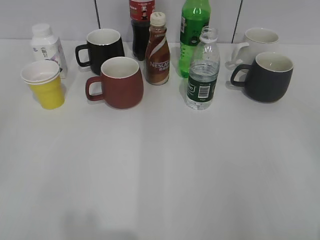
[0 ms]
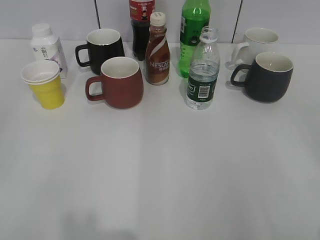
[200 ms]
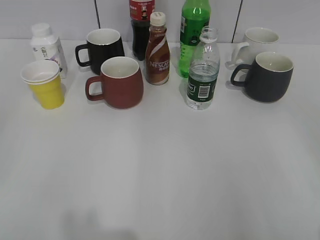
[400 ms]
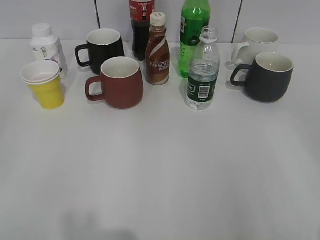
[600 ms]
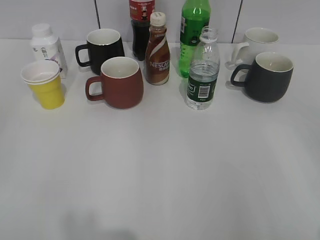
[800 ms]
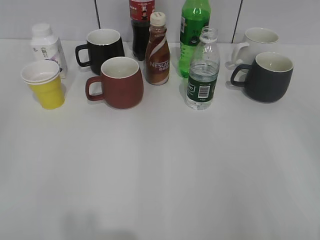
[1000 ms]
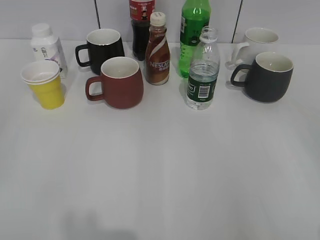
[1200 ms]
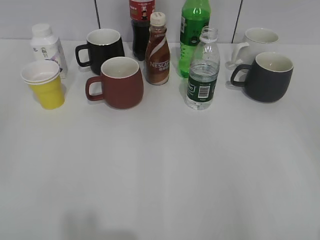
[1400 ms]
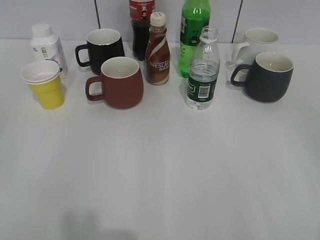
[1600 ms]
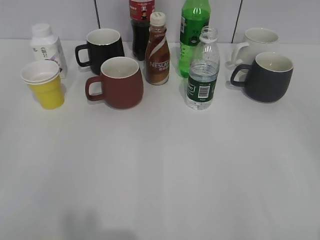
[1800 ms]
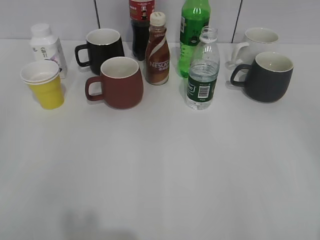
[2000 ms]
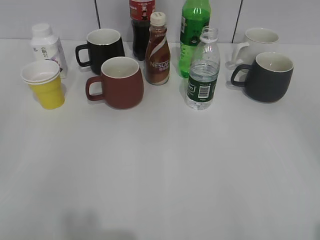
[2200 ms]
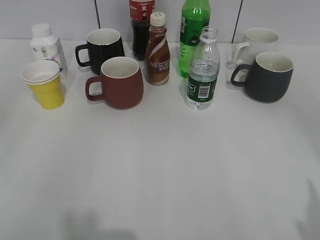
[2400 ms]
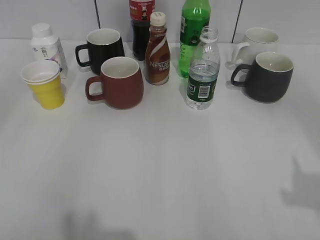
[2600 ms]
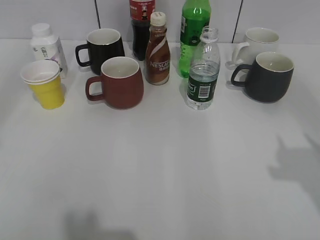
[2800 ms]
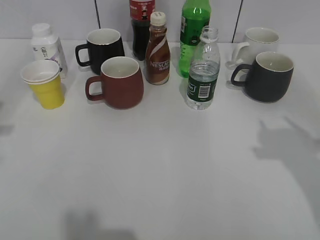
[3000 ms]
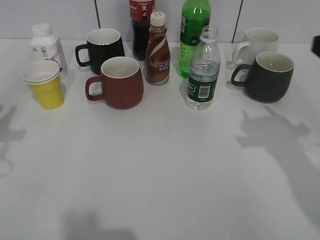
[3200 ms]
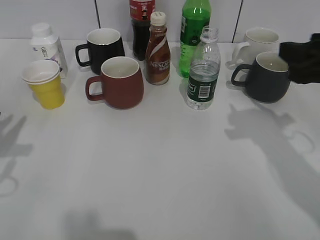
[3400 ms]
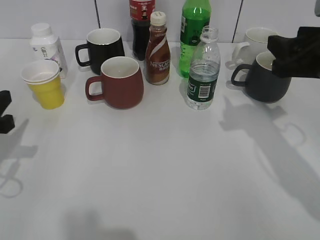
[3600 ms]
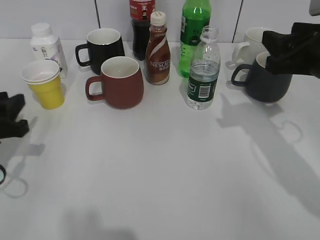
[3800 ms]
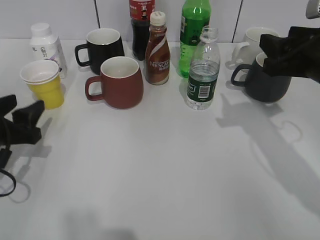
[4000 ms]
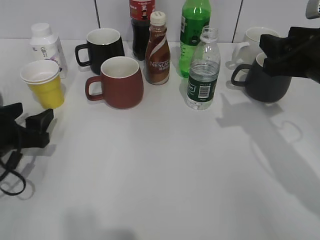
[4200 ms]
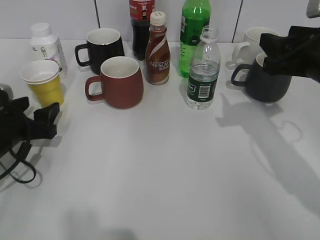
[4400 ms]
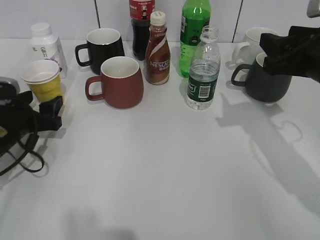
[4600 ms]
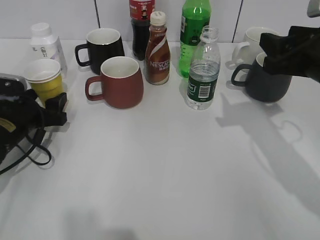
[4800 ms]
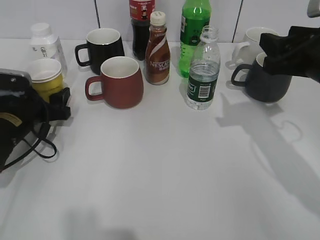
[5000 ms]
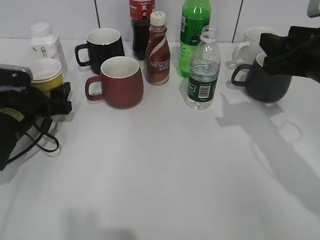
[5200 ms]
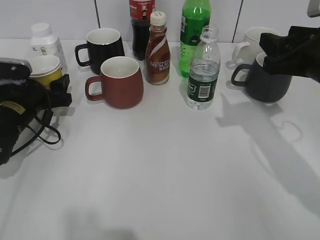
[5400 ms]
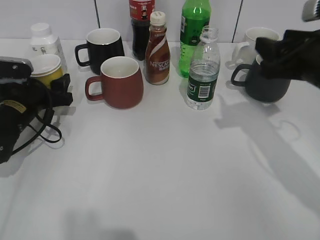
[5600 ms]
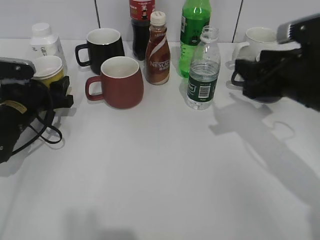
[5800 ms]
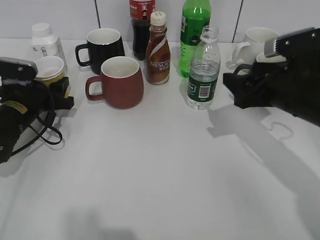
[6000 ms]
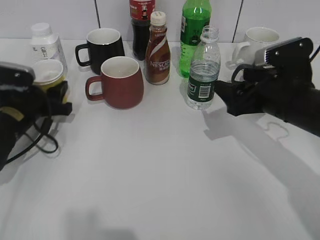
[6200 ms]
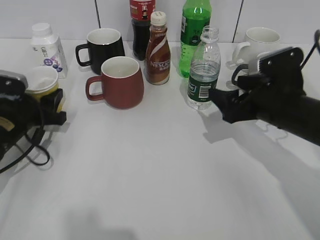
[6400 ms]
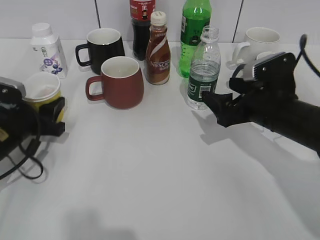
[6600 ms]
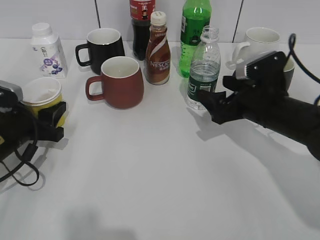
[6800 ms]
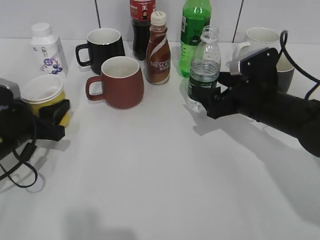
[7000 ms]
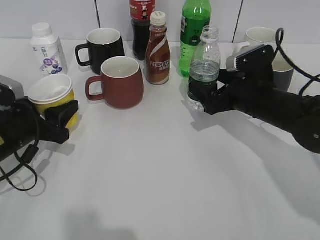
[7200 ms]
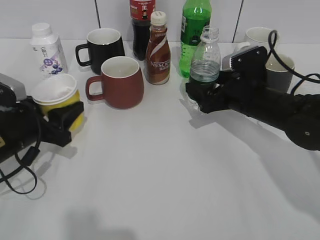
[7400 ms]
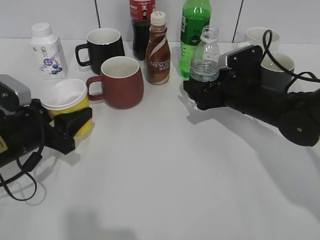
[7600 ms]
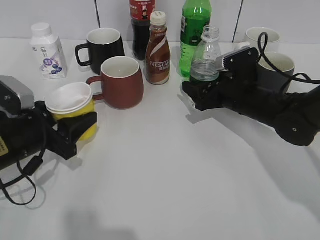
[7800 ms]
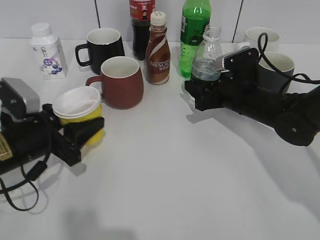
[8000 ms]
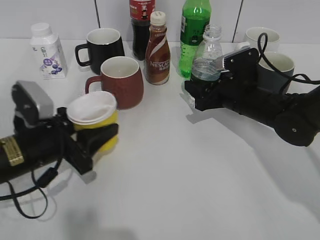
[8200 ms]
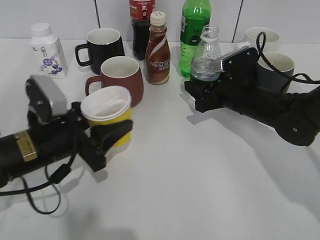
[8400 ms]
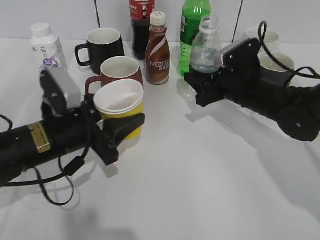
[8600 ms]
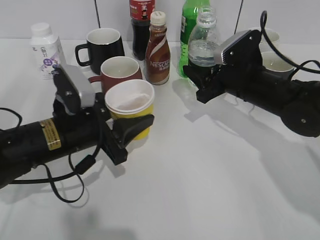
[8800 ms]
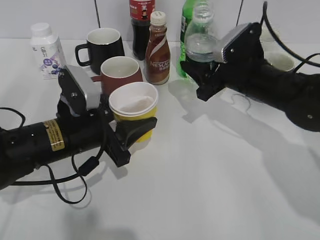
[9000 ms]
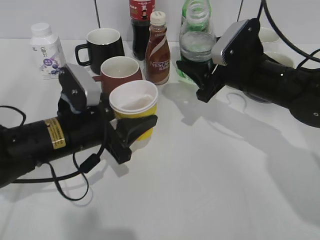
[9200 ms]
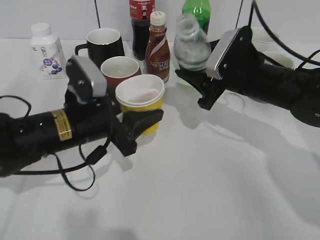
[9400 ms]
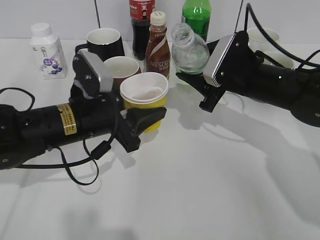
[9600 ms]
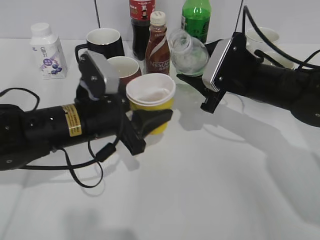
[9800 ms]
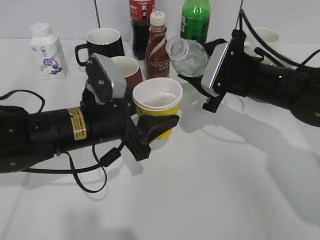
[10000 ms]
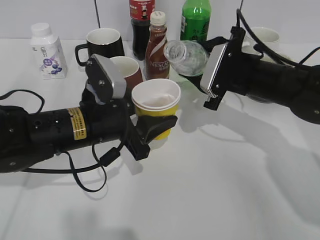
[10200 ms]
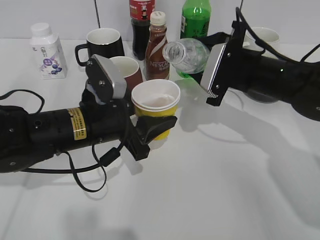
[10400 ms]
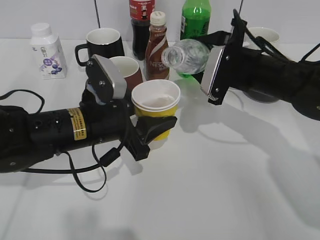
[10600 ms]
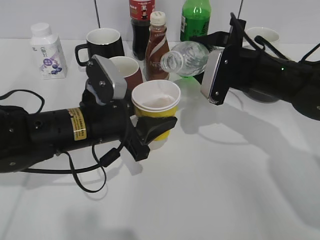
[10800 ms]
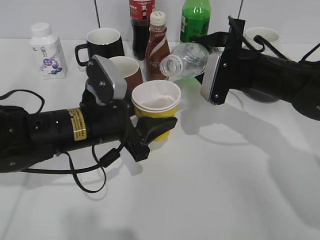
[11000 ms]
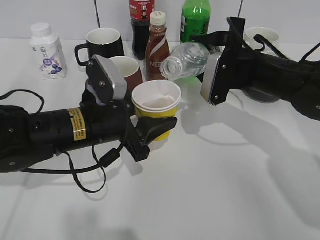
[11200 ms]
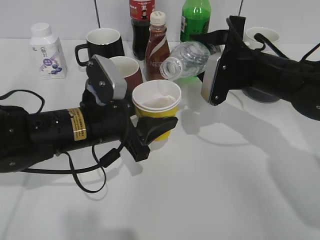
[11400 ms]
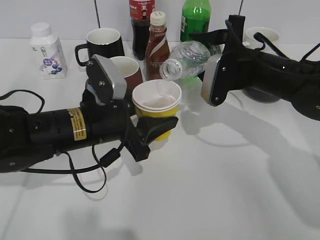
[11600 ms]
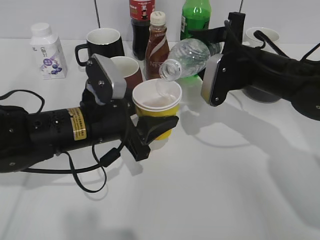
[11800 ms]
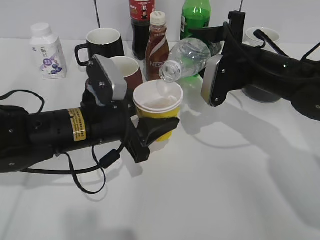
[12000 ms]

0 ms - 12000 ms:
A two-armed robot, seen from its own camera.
Step, 0 ms - 5200 ms: Grasp the yellow paper cup with left gripper.
Step, 5400 ms - 8000 ms: Grasp the bottle with water with right gripper.
1600 ms - 3000 ms: The right gripper moves forward, approximately 15 cm.
3000 ms - 4400 ms: The right gripper shifts some 15 cm forward, downward and to the left. Meanwhile the left gripper moves downward, roughly 20 cm, and opens.
4400 ms - 6000 ms: The right gripper travels downward by some 5 cm, and opens up. Meanwhile the left gripper goes roughly 10 cm forward, and closes.
6000 ms - 7600 ms: The right gripper shifts about 10 cm forward and downward. Meanwhile the left gripper moves backward, about 10 cm.
7600 ms - 9000 ms: The left gripper moves to the right, roughly 10 cm, while the right gripper closes.

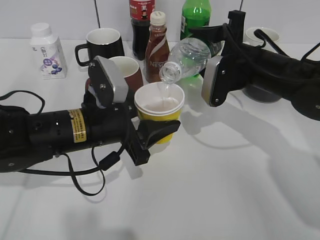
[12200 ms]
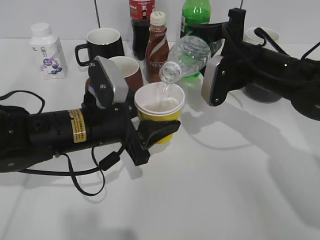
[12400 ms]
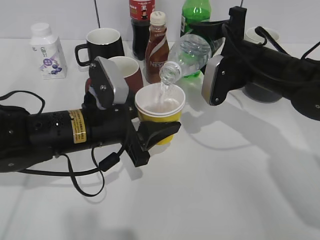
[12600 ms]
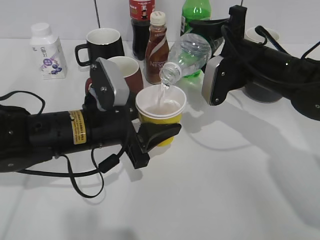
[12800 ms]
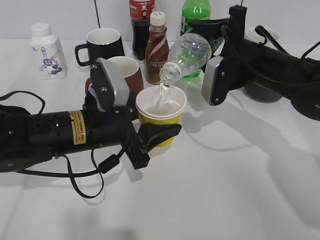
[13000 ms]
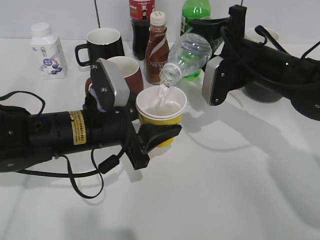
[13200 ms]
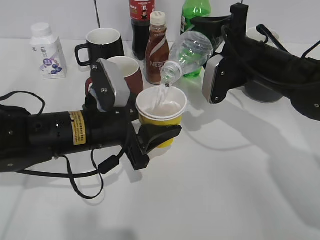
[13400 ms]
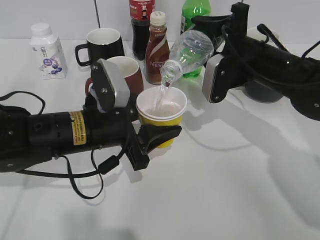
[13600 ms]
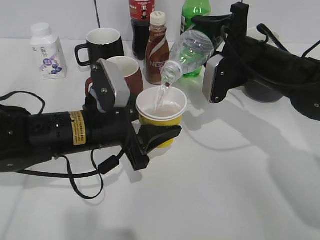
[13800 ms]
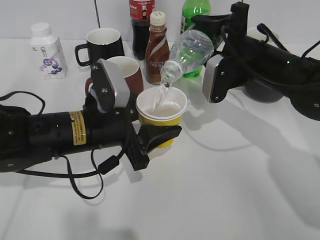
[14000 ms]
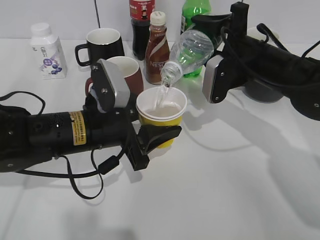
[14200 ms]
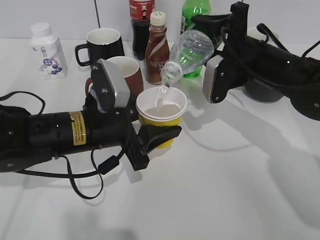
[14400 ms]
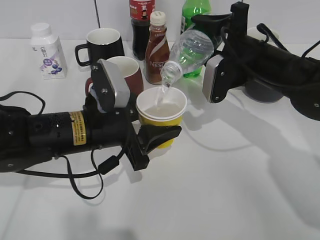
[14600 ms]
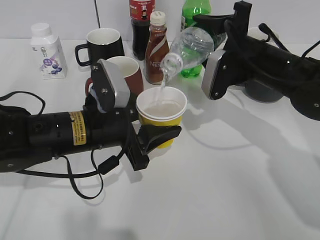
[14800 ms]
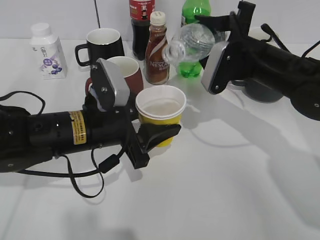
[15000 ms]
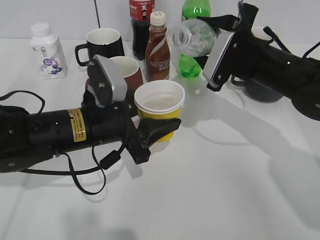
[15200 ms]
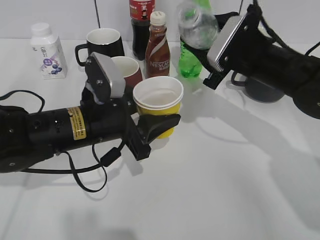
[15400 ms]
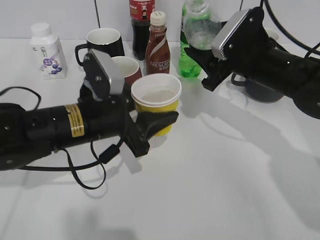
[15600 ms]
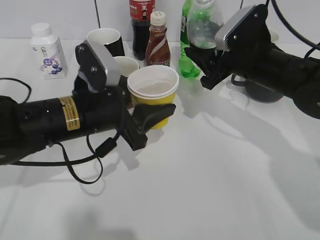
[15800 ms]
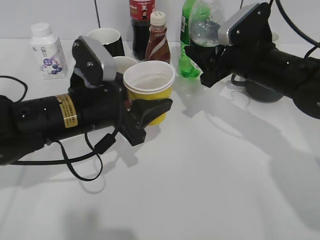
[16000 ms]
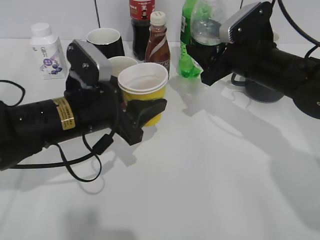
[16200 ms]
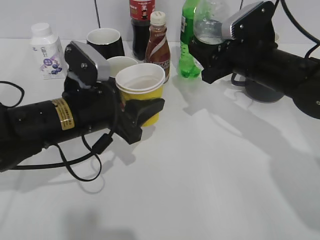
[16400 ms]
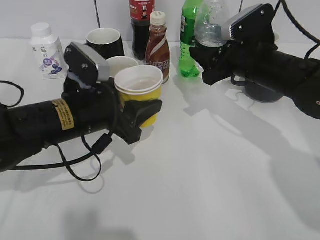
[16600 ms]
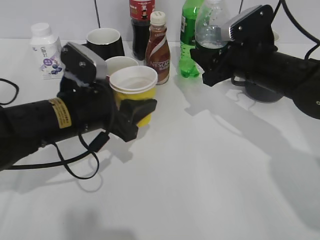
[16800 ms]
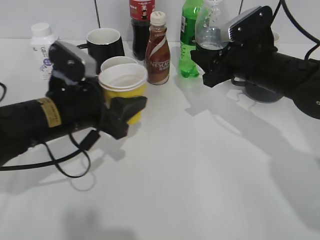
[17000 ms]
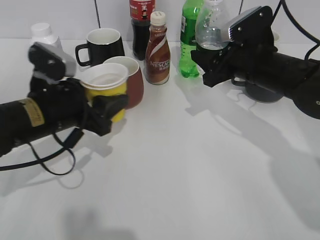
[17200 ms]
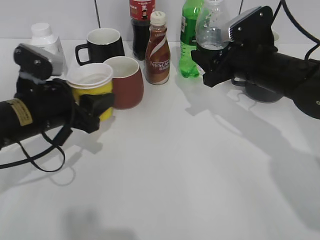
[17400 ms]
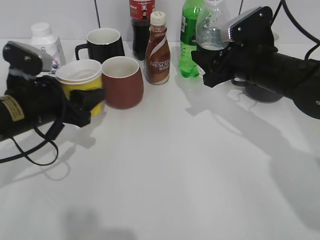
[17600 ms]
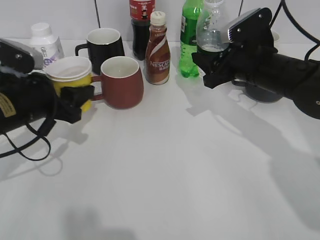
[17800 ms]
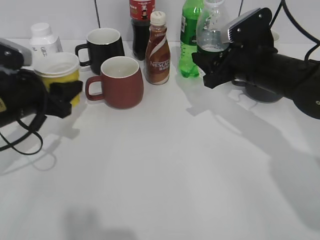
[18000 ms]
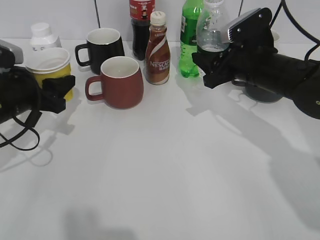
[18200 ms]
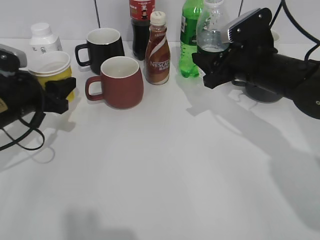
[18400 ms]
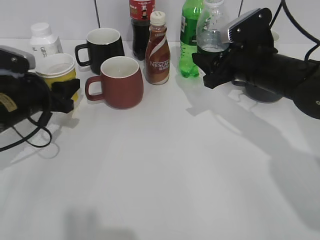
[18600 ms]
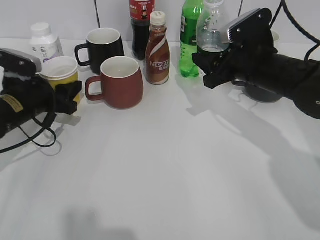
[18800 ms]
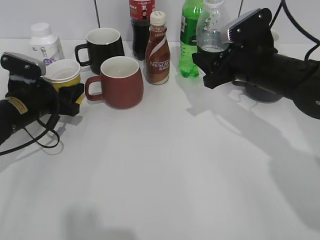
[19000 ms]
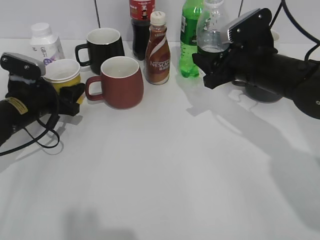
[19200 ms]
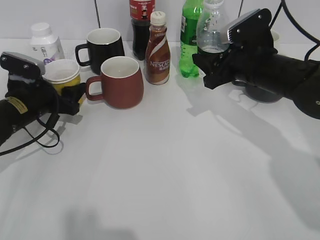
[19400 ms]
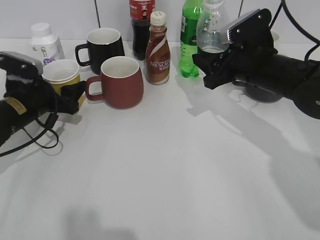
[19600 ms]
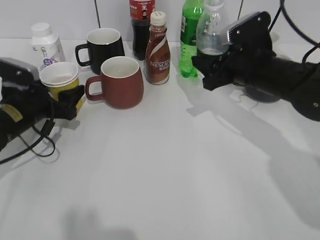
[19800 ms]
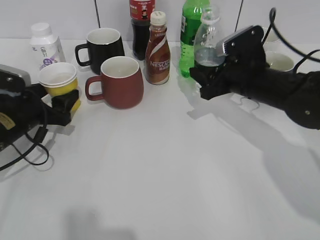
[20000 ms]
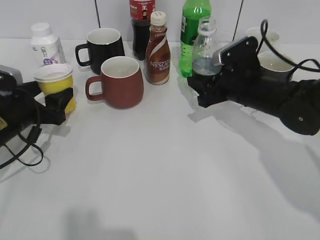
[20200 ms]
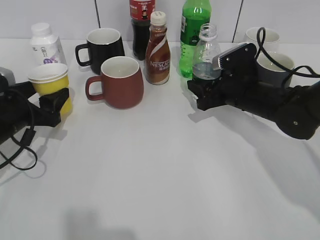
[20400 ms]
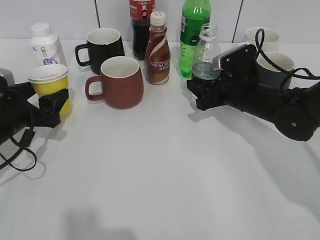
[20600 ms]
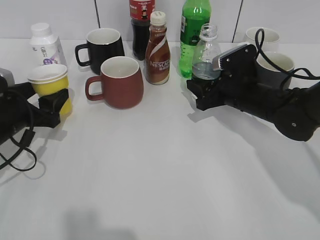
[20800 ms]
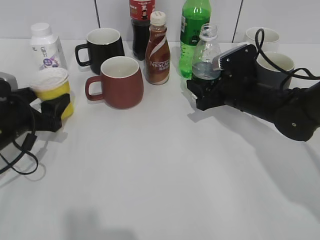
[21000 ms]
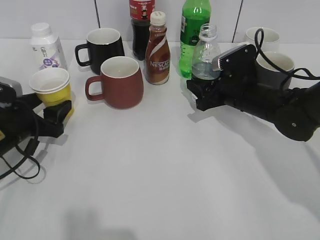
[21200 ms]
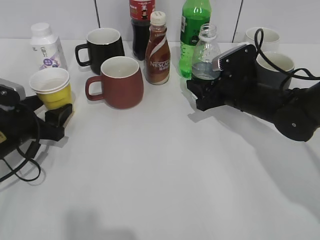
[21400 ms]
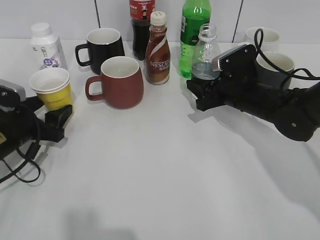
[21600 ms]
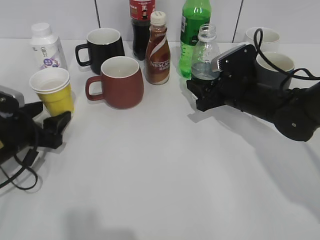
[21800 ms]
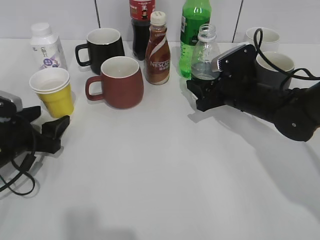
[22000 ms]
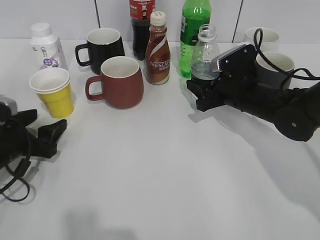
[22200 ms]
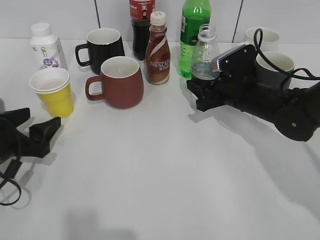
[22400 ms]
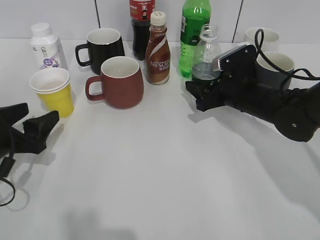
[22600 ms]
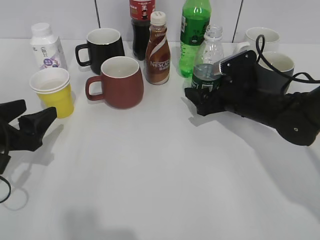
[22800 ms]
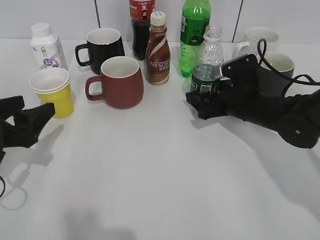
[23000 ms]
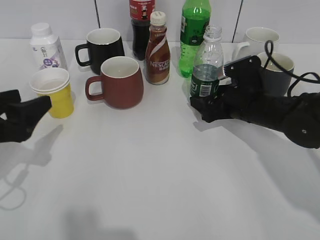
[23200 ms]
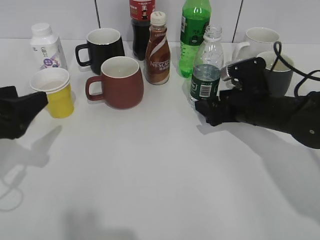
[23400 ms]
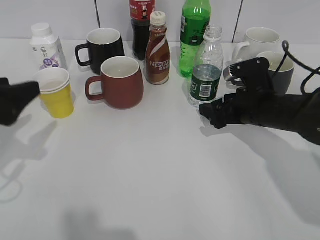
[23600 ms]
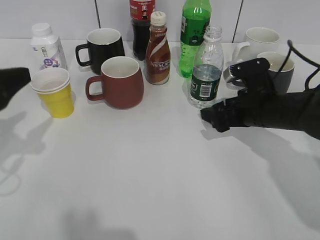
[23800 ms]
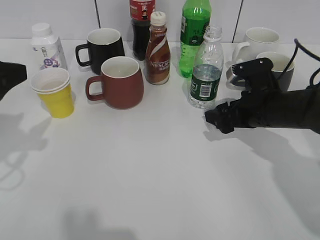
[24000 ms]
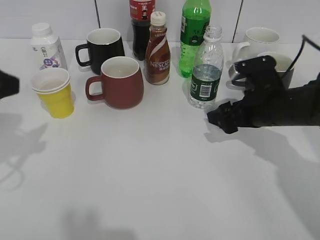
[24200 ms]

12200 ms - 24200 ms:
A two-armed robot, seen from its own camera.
Step, 12200 ms - 15200 ms: Pour the water from bottle to cup with right gripper.
Step, 15400 ms - 19600 ms: Place the yellow paper cup on the table with left gripper.
Step, 19800 ms - 24000 ms: Place the water bottle on the table with right gripper.
12200 ms - 13800 ms: The grippers move only a little.
16600 ms - 18200 ms: The left gripper moves to the left, approximately 10 cm.
18200 ms - 19800 ms: The left gripper goes some 5 cm downward, and opens up.
19800 ms - 21200 ms: The right gripper travels downward by approximately 5 cm.
21200 ms - 22600 ms: The left gripper heads backward, covering some 5 cm.
22600 ms - 24200 ms: The left gripper shifts about 15 cm upward. The right gripper heads backward, covering approximately 5 cm, and opens its fingers.
